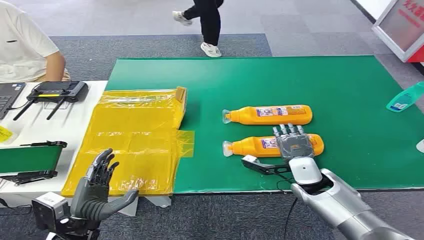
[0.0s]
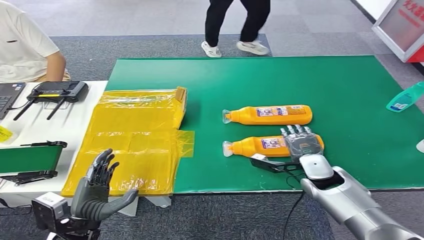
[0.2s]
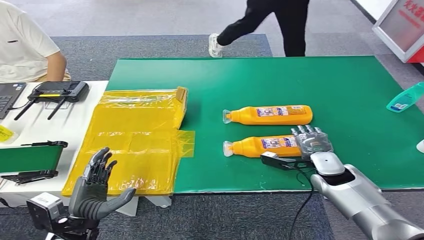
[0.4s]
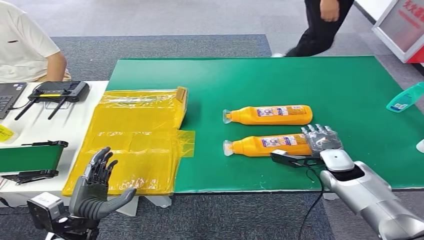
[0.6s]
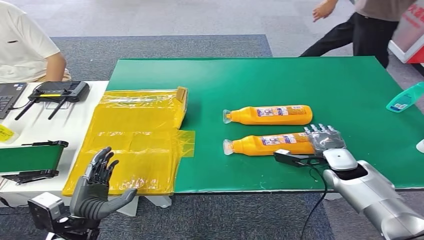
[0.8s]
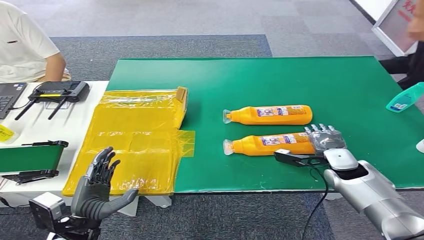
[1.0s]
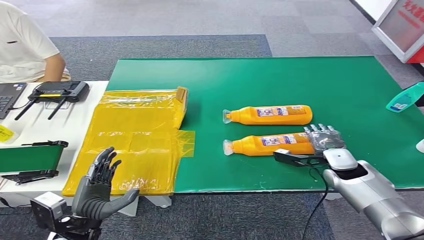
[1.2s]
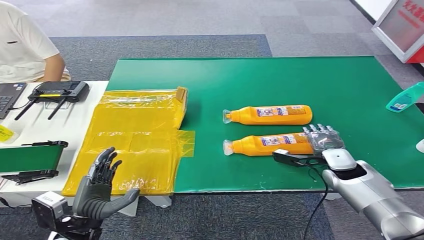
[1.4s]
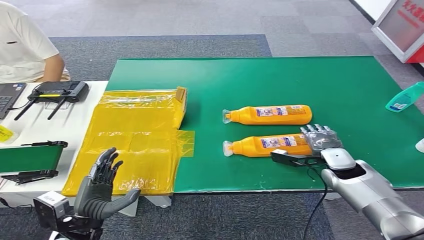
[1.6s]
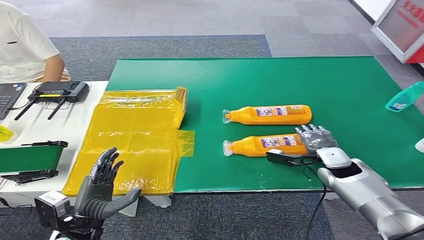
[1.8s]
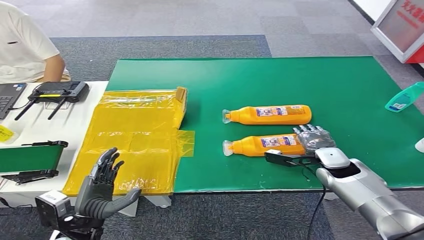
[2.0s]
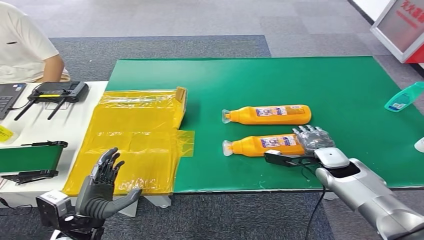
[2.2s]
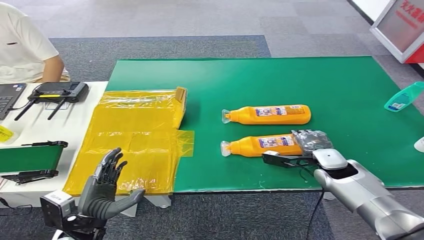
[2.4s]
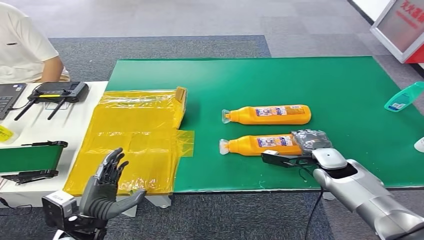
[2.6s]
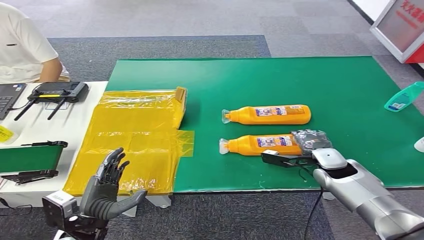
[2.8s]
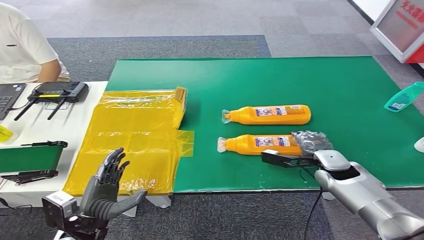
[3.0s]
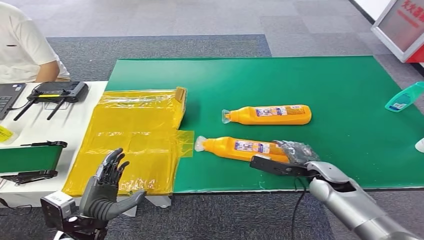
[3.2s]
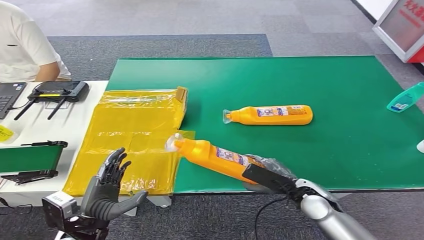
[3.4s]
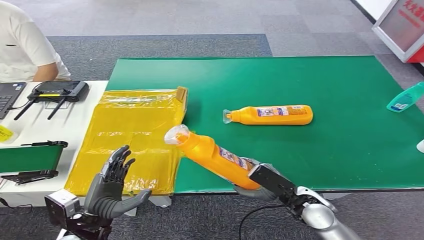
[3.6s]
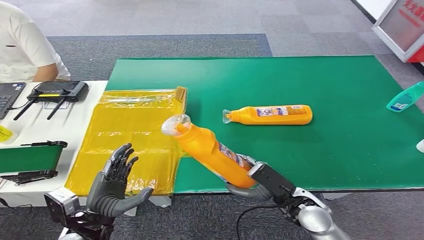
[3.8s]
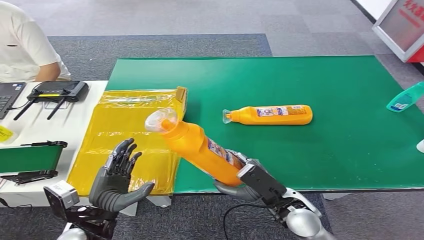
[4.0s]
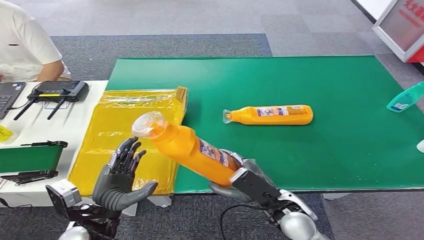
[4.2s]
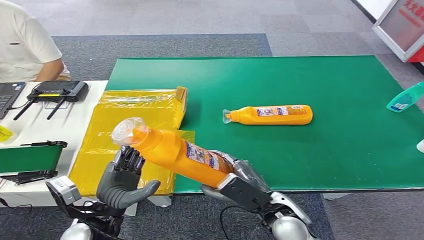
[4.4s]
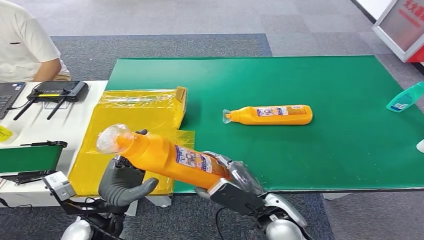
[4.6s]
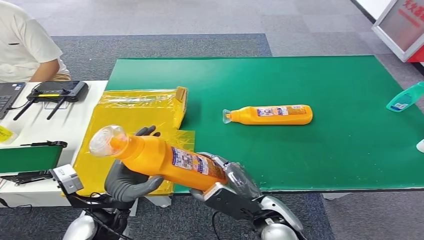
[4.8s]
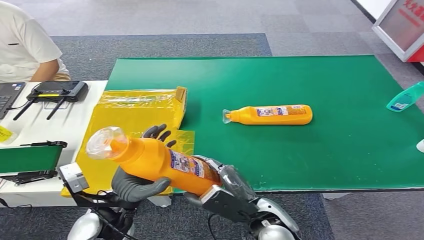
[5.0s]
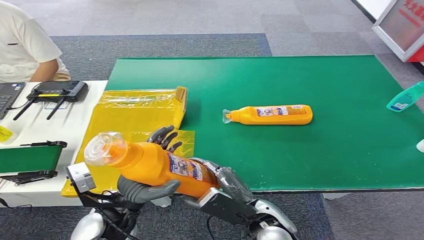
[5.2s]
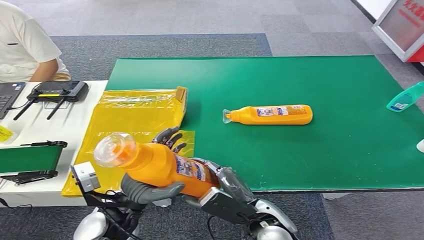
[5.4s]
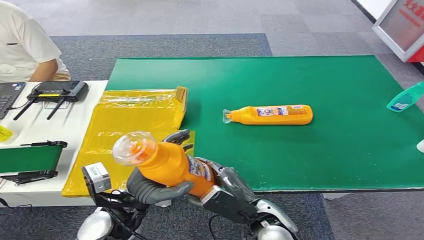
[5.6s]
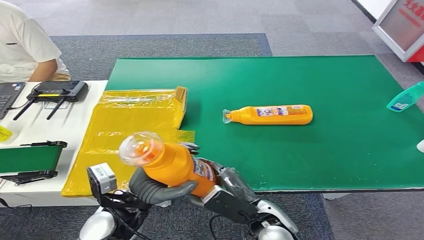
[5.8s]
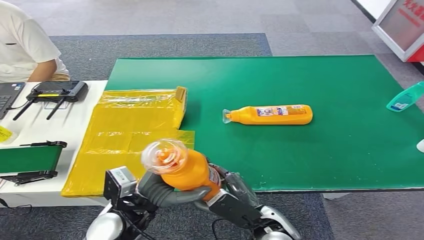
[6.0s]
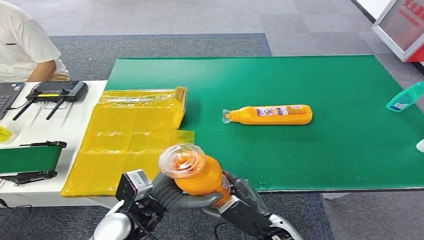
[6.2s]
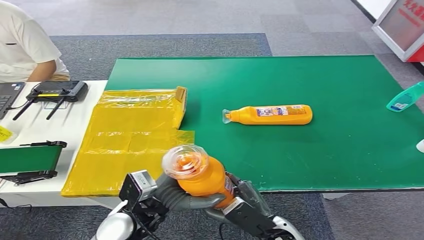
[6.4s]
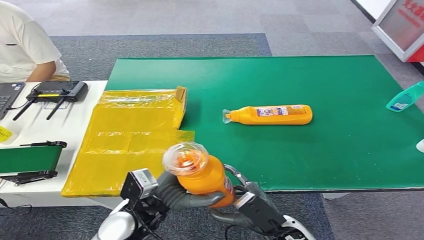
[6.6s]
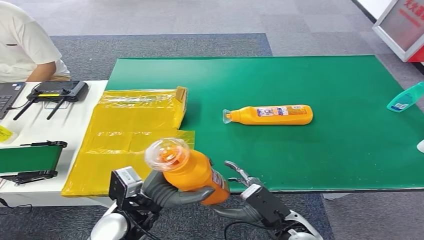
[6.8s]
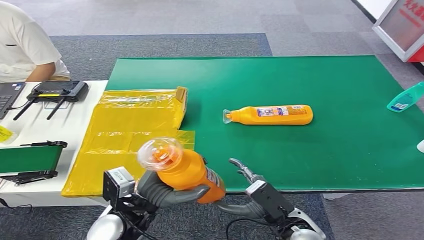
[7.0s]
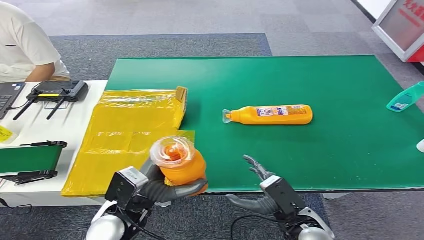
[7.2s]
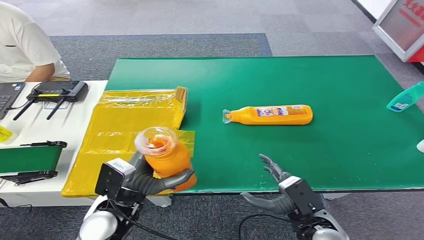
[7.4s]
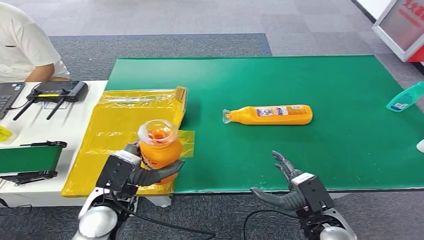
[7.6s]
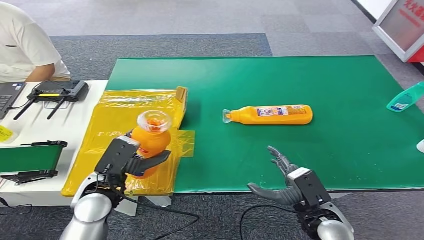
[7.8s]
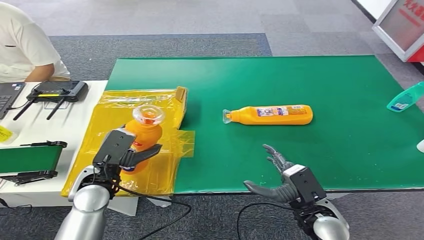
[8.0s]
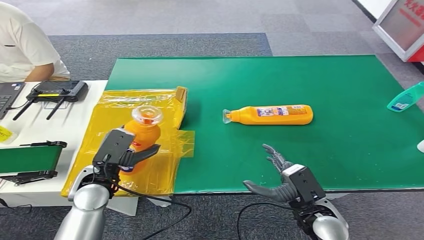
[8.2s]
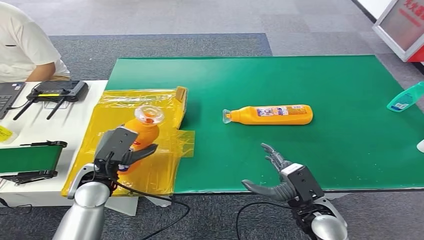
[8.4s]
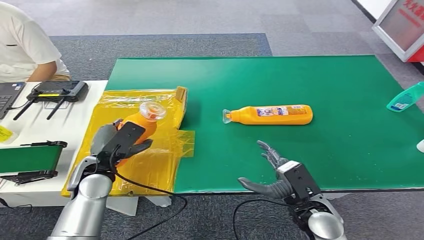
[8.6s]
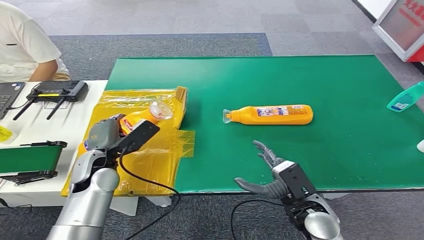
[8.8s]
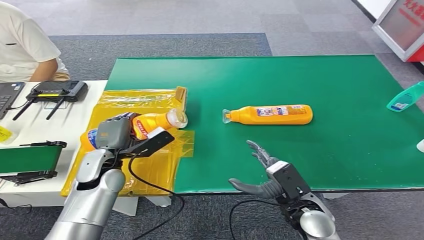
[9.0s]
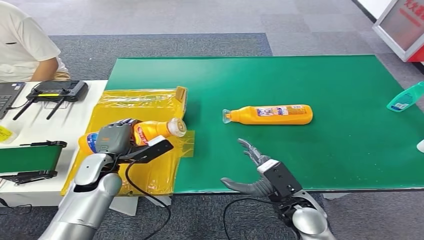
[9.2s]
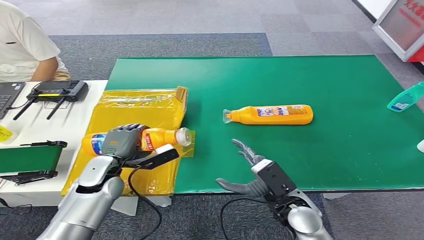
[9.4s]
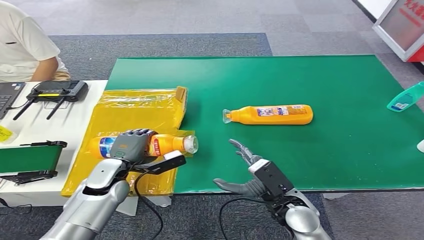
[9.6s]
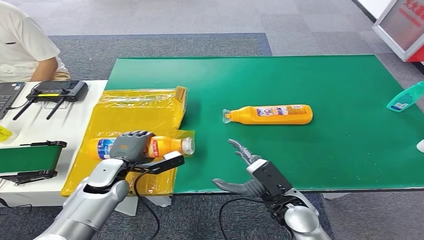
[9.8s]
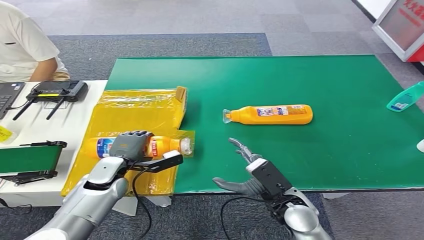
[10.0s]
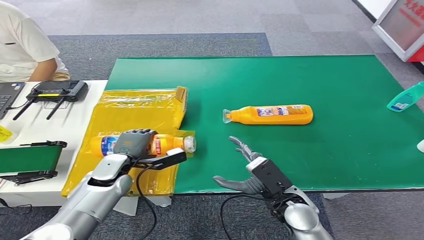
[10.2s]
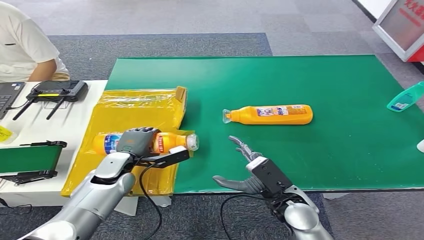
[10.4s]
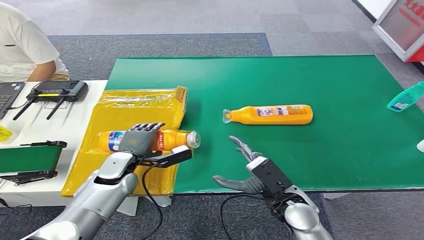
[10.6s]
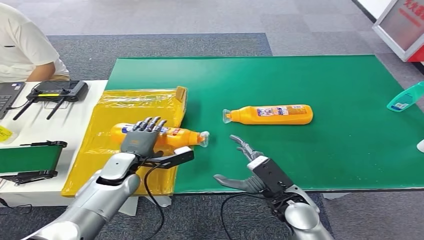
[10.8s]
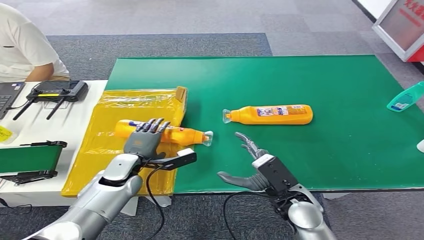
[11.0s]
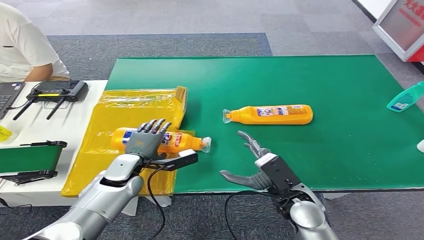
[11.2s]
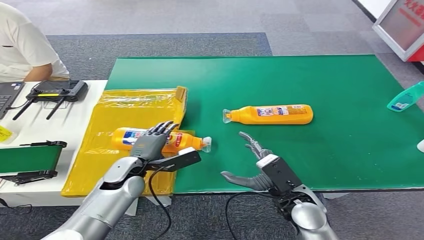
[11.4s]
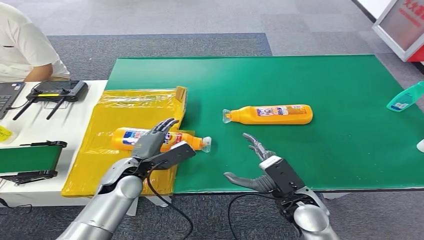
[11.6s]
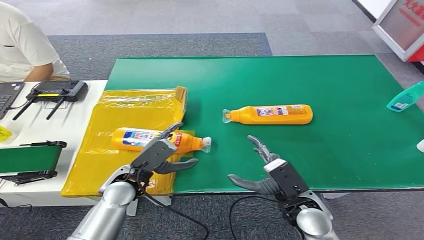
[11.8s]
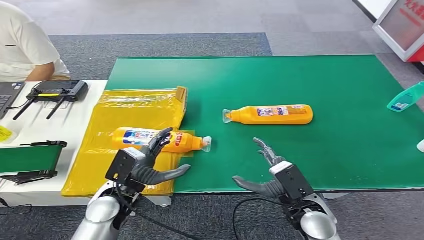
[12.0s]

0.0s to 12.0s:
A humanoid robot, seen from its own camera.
Step, 0.0s to 4.2s: Pick up the bottle from the table.
Step, 4.6s to 11.8s: Turn the bottle to the front side.
1.6s to 3.0s: The hands make only small movements.
4.4s to 6.0s: The left hand goes approximately 5 cm to the right.
6.0s to 7.6s: The right hand travels to the right by about 10 cm.
7.6s to 9.0s: The left hand shifts some 10 cm forward. The right hand moves some 5 cm.
9.0s to 10.4s: The left hand shifts approximately 5 cm downward.
10.4s to 12.0s: The left hand travels backward by about 10 cm.
